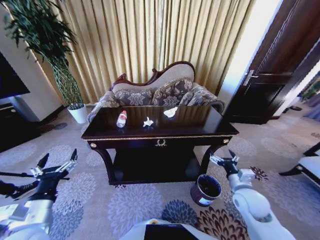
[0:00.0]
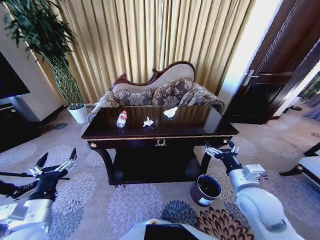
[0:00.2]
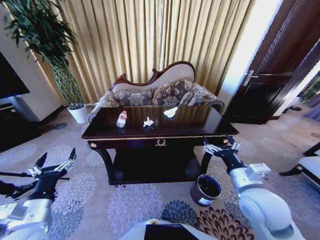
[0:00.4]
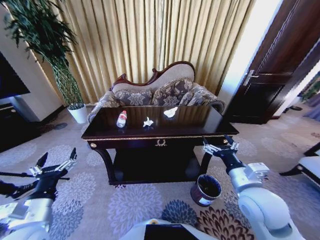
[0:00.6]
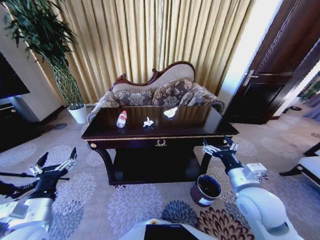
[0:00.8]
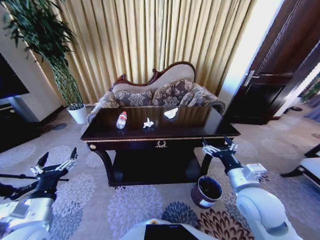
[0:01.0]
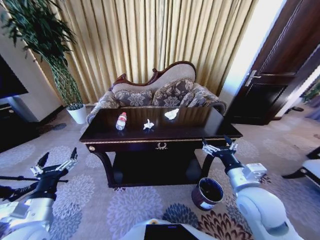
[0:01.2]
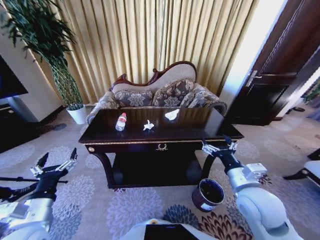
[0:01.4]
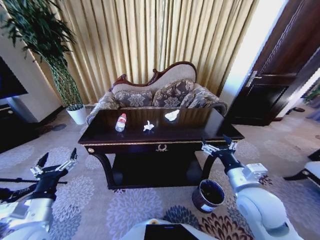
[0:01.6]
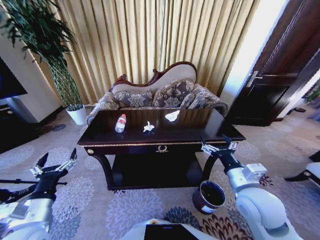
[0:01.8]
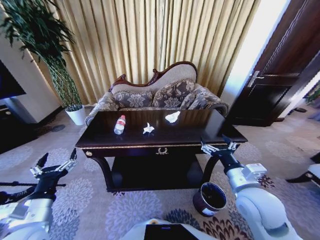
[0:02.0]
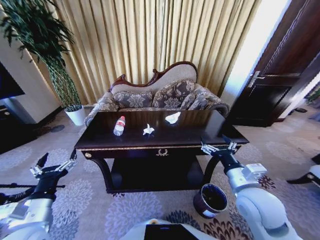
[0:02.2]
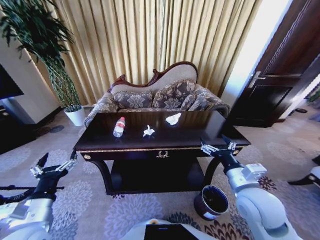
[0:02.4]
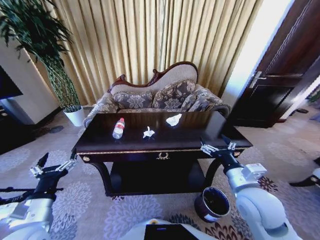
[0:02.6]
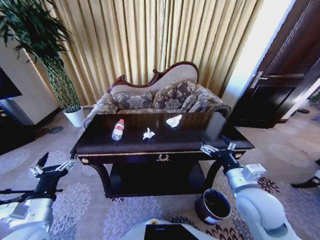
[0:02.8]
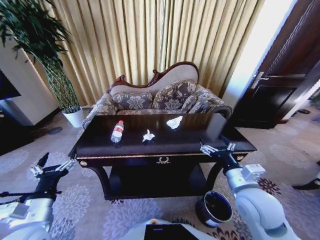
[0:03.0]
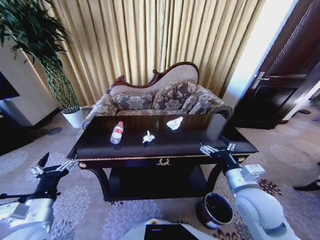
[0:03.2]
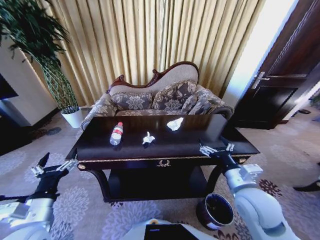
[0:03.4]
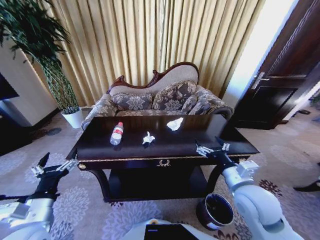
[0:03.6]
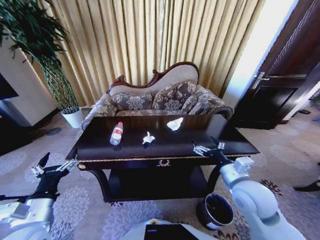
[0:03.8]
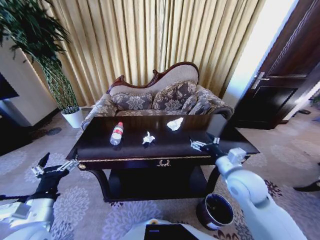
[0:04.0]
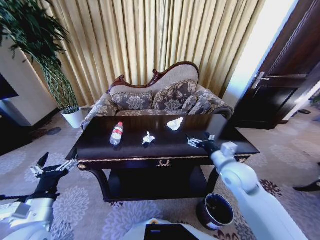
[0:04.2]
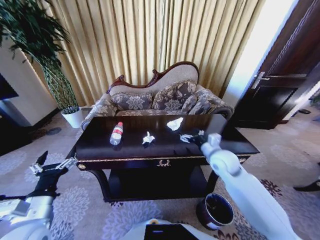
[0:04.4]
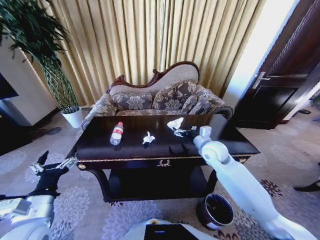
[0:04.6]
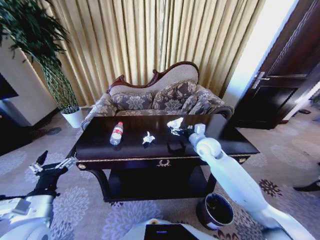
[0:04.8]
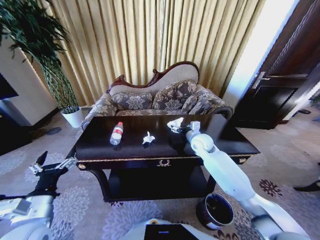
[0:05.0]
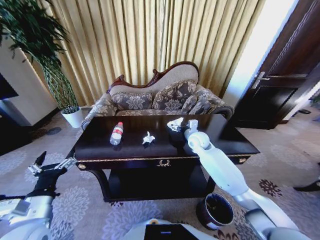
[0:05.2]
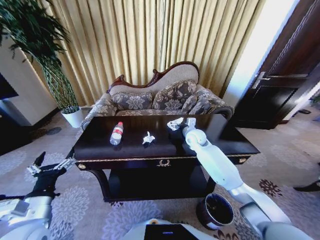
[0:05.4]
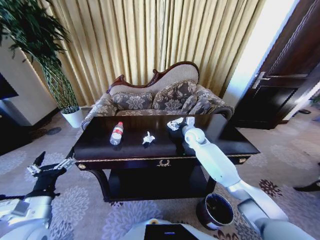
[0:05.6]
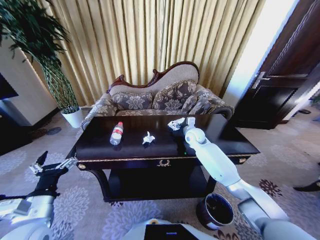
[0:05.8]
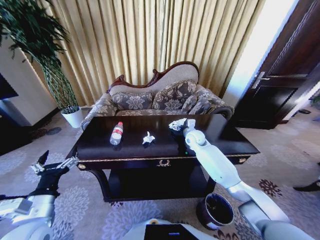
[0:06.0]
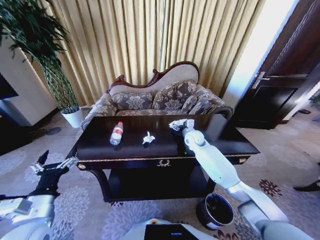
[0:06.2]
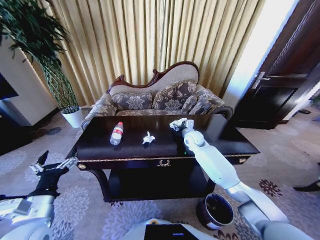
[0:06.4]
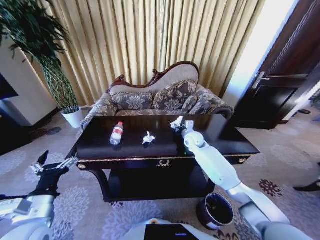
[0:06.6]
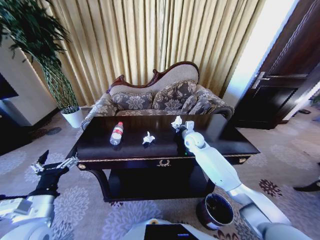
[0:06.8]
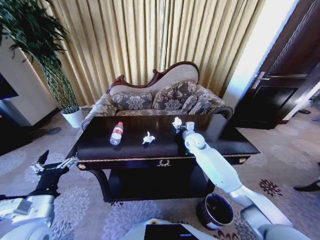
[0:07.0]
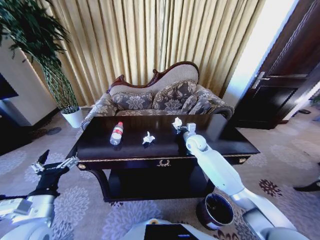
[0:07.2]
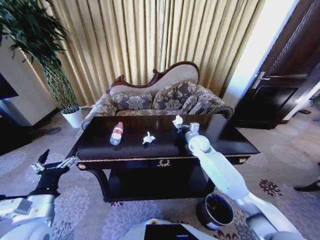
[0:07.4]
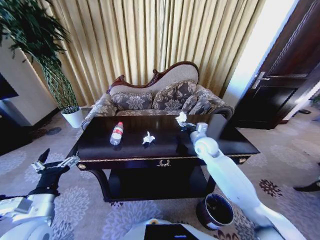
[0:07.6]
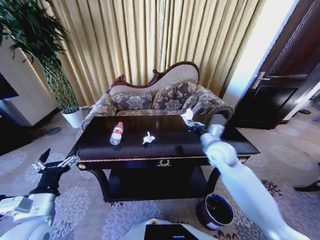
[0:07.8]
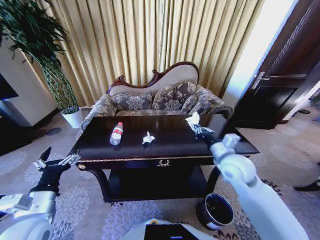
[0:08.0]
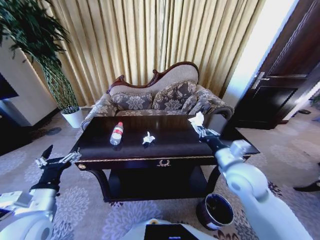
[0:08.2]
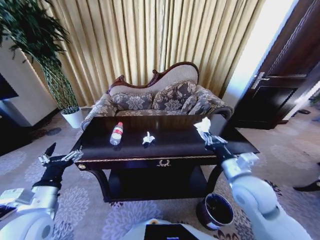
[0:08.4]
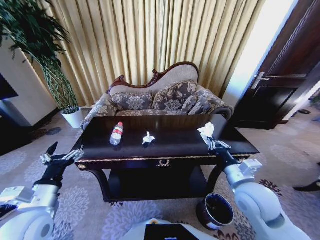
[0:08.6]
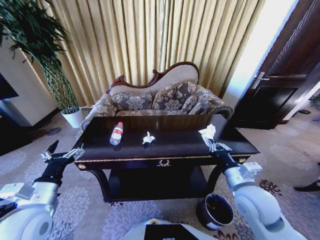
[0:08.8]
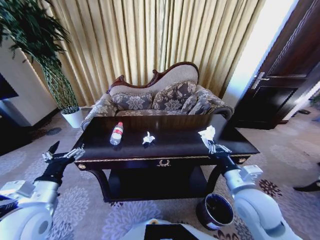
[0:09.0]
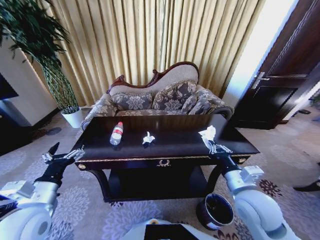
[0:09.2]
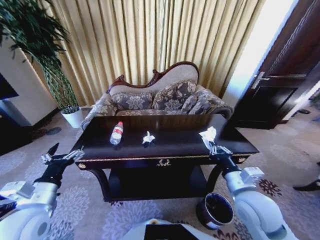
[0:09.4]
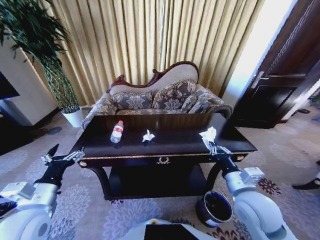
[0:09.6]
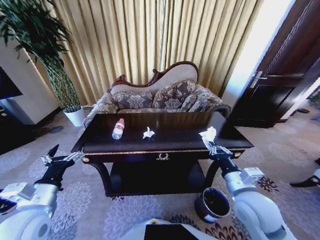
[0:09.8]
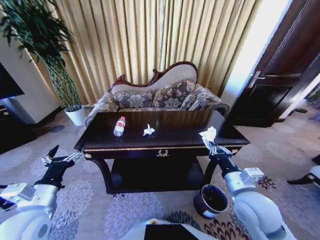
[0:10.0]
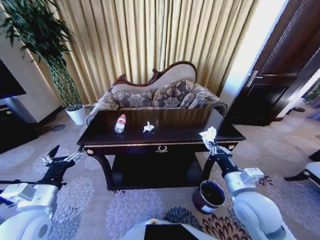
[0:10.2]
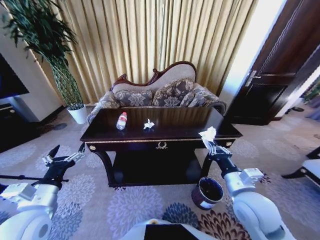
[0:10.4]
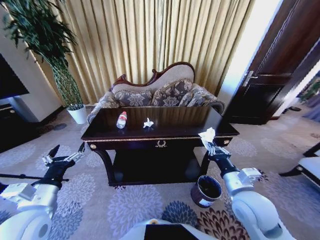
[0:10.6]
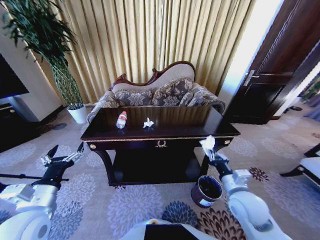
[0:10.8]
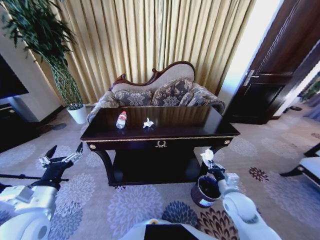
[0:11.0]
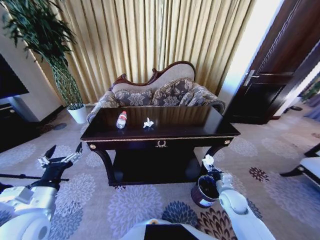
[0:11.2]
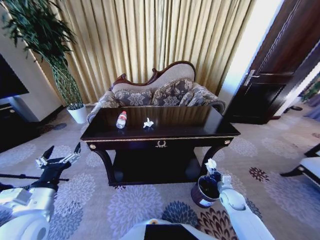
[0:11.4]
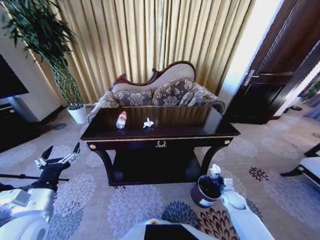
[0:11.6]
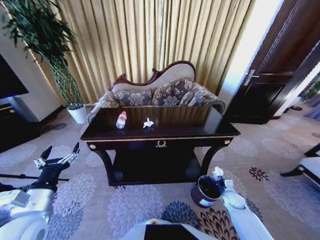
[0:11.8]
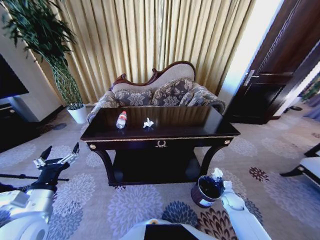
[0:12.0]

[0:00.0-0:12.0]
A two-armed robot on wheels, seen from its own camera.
Task of the whole recording: Move to the front of the table and place the trash on the table into the trash bin.
0:00.0 to 0:01.6: The right gripper moves upward and to the left, roughly 10 cm.
0:03.0 to 0:04.4: The right gripper goes some 15 cm forward.
0:04.4 to 0:06.0: The right gripper is displaced forward by approximately 15 cm.
0:06.0 to 0:07.6: The right gripper goes some 10 cm backward, and closes.
0:07.6 to 0:09.0: The right gripper heads backward, covering roughly 25 cm.
0:10.4 to 0:12.0: The right gripper goes about 35 cm downward and to the right.

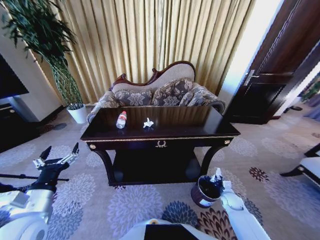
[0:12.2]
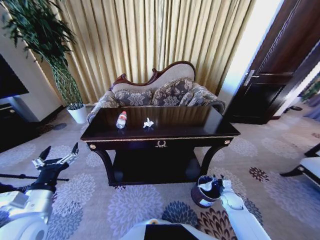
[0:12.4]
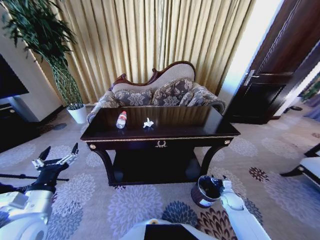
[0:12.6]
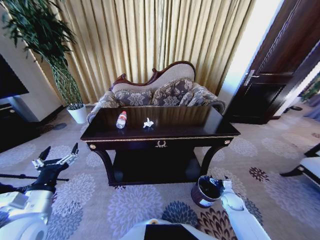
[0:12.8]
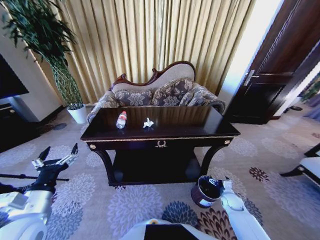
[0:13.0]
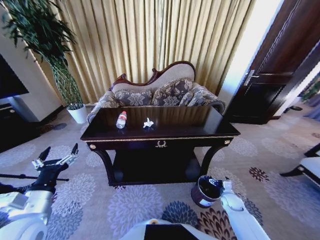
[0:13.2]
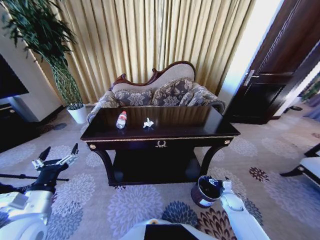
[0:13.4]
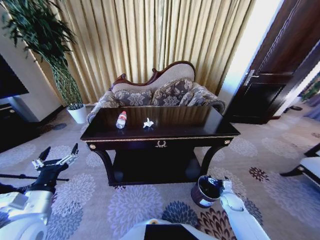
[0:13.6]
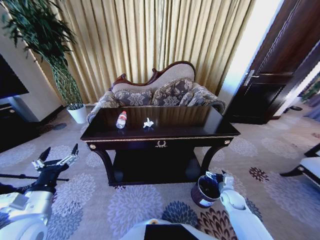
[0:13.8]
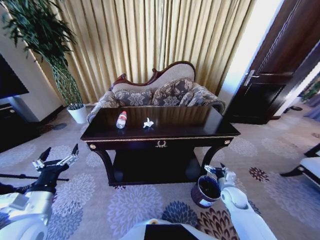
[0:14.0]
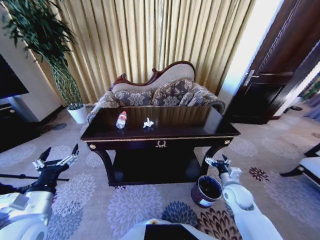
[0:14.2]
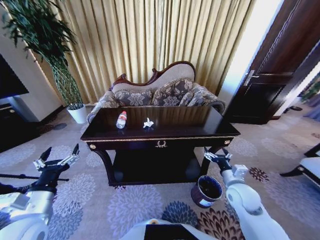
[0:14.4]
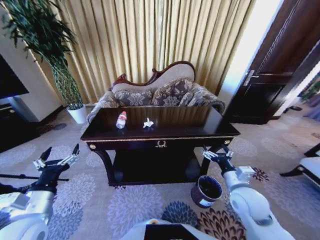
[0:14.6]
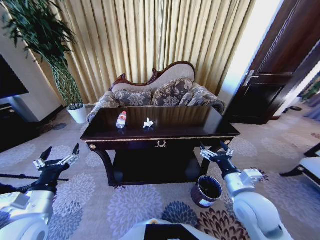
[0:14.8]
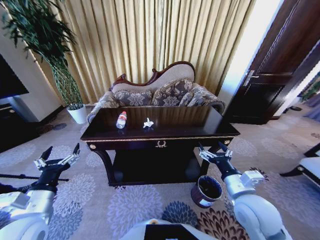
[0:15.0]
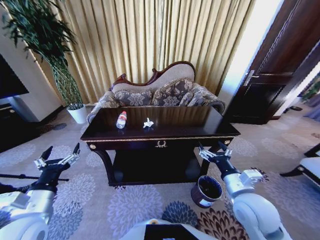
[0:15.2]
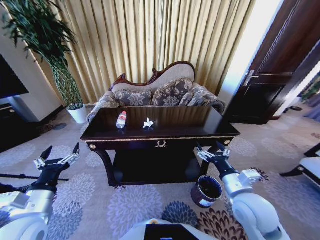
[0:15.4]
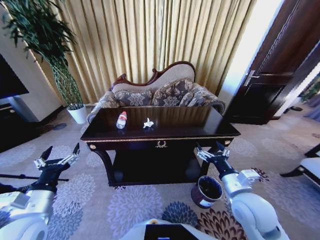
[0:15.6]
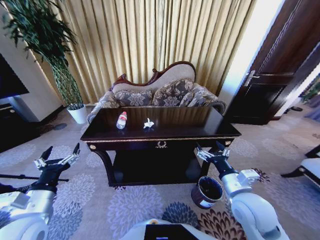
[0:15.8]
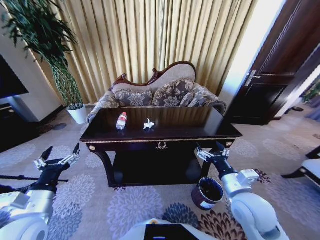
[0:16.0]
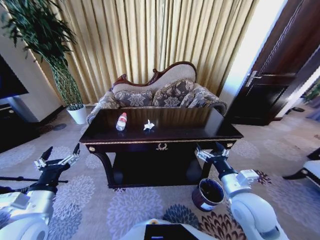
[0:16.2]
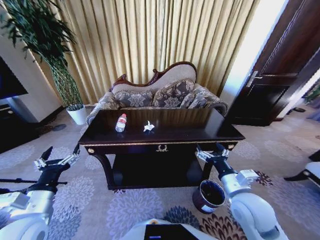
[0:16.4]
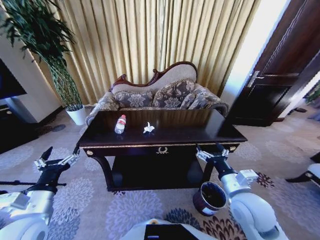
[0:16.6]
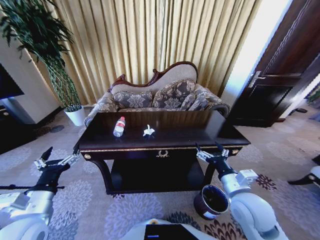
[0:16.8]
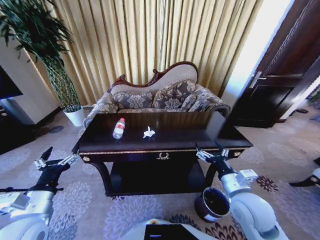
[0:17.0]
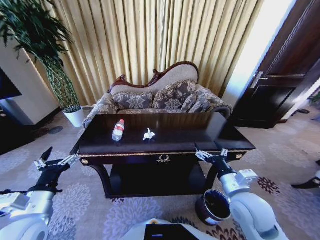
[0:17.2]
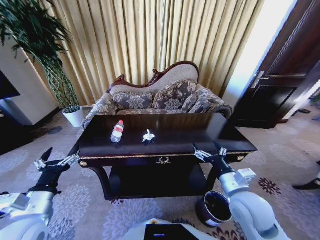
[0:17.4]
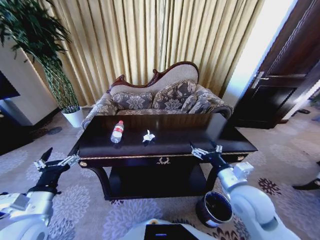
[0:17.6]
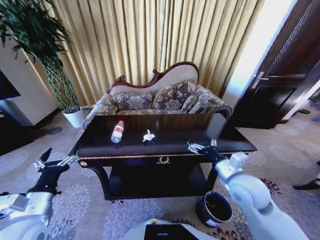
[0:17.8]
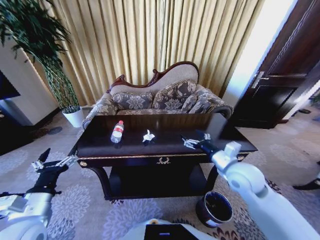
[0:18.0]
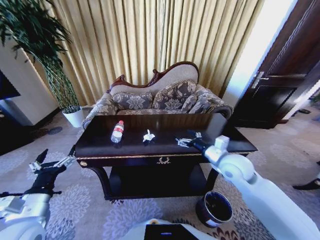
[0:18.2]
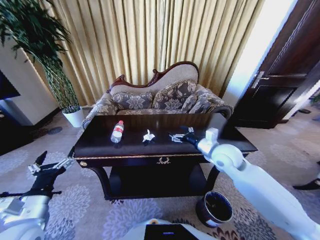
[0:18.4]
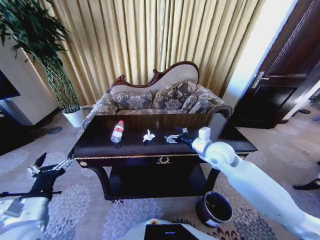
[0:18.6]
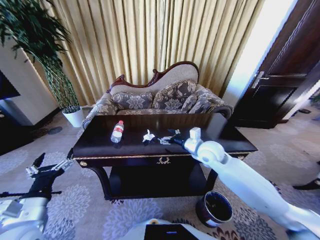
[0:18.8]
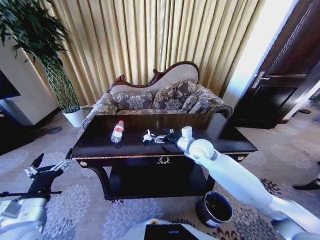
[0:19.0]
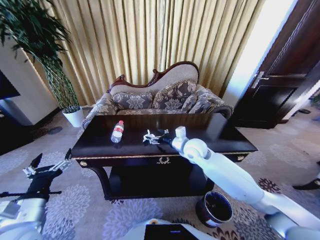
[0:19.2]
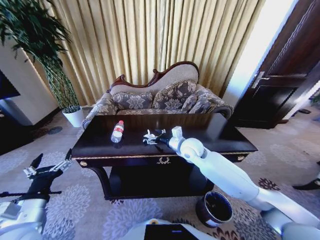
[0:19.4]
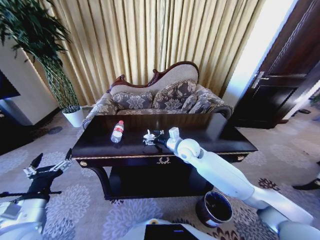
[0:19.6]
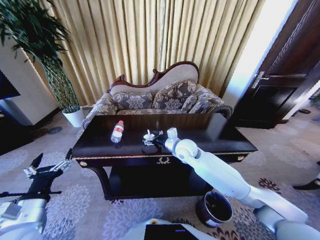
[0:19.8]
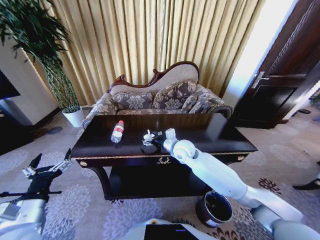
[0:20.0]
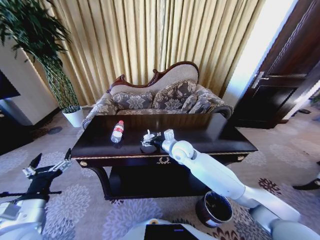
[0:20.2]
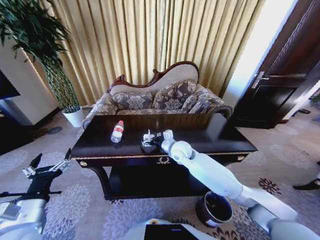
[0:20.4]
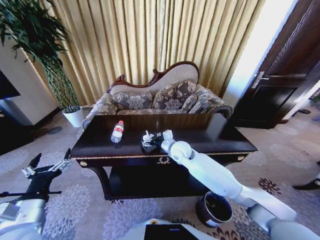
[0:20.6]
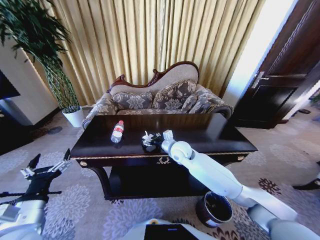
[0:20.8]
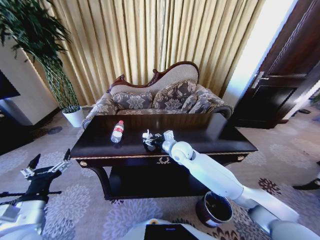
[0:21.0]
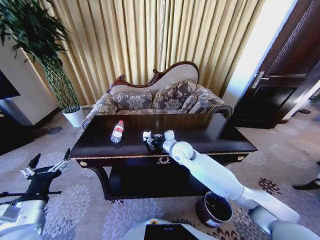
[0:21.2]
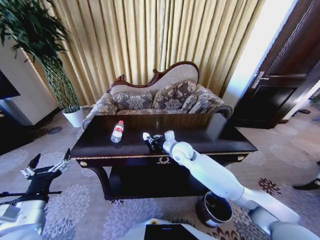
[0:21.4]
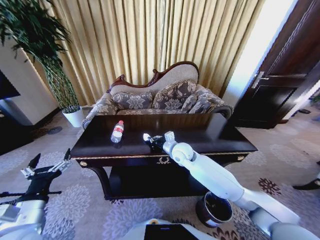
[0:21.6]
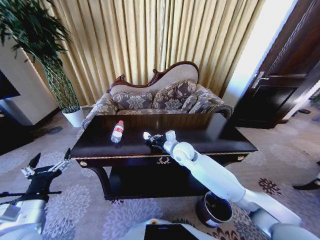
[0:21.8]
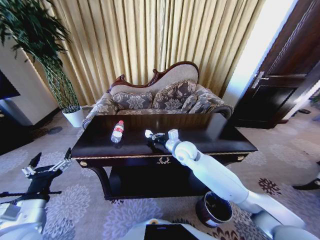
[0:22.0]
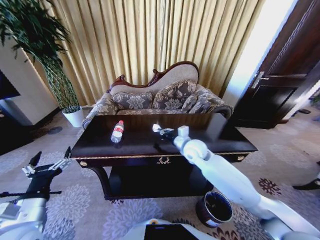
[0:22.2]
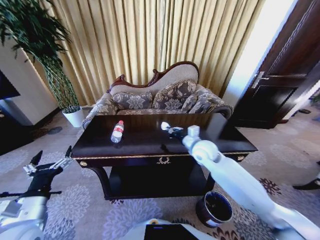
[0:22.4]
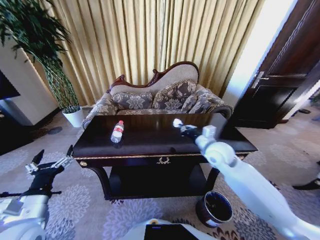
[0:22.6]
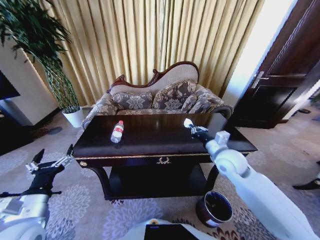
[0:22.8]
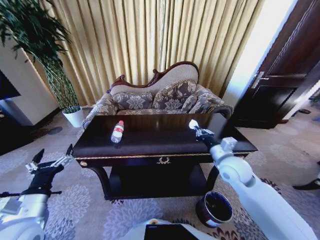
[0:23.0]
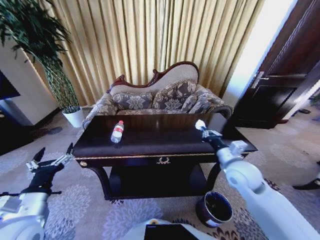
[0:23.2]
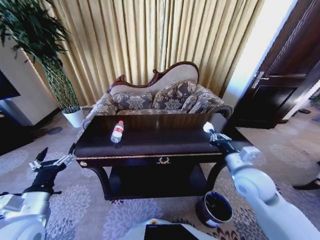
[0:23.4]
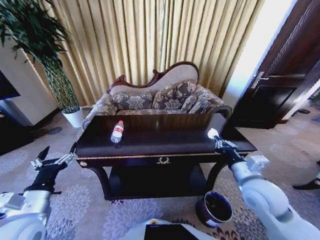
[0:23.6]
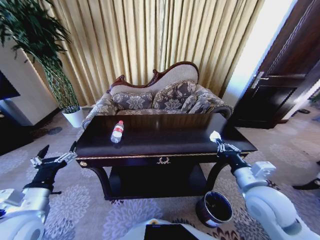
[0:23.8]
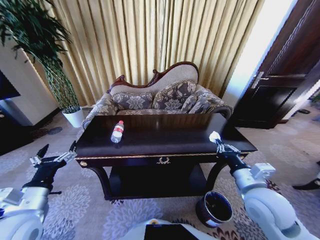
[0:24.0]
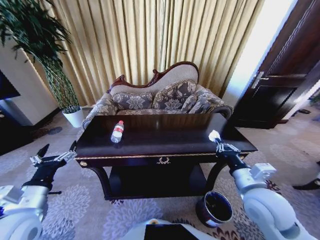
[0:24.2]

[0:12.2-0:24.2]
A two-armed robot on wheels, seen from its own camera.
Task of the whole recording: Move to the front of the table and place the trash on the table into the trash bin.
0:12.2 to 0:13.8: The right gripper opens its fingers.
0:13.8 to 0:15.2: The right gripper moves upward and to the left, some 30 cm.
0:16.6 to 0:18.2: The right gripper shifts roughly 10 cm forward.
0:18.2 to 0:19.8: The right gripper goes some 15 cm to the left and forward.
0:19.8 to 0:21.2: The right gripper closes.
0:21.2 to 0:22.6: The right gripper is displaced to the right by approximately 15 cm, and closes its fingers.
0:22.6 to 0:24.2: The right gripper travels backward by about 20 cm.
